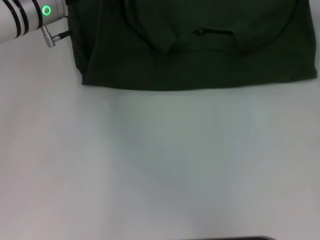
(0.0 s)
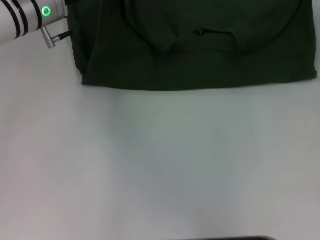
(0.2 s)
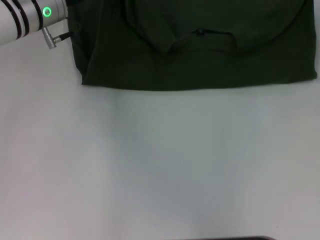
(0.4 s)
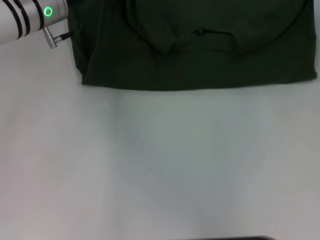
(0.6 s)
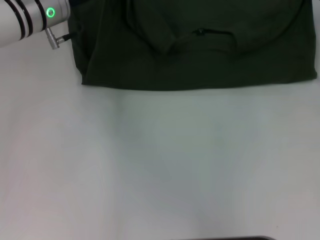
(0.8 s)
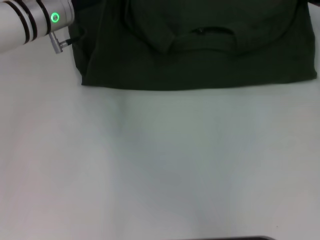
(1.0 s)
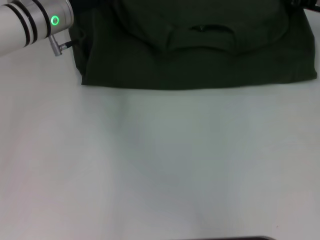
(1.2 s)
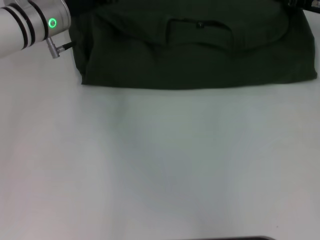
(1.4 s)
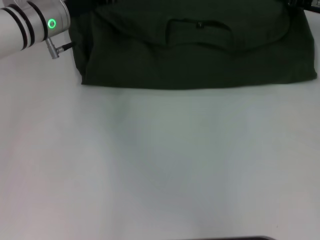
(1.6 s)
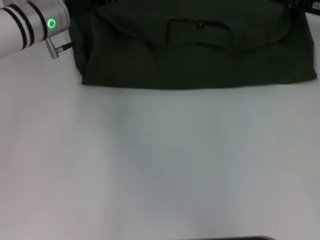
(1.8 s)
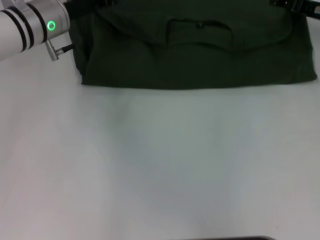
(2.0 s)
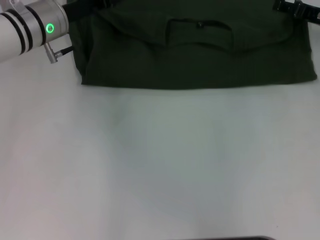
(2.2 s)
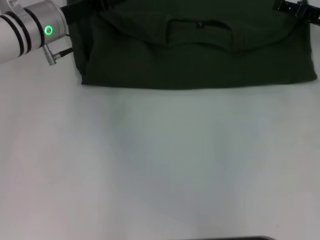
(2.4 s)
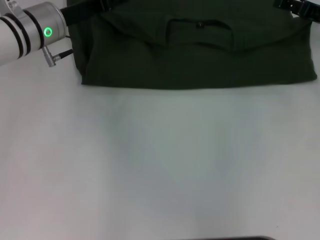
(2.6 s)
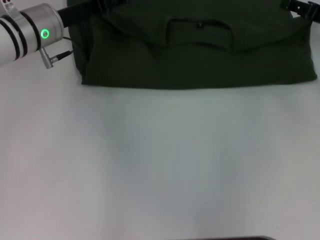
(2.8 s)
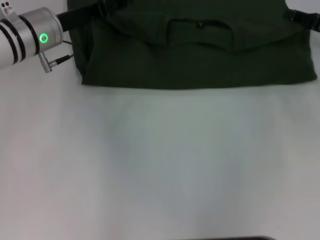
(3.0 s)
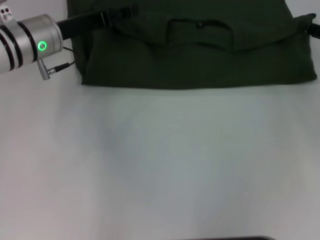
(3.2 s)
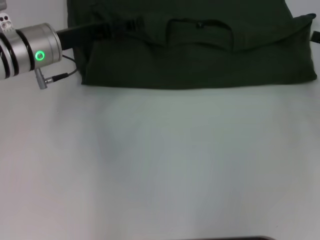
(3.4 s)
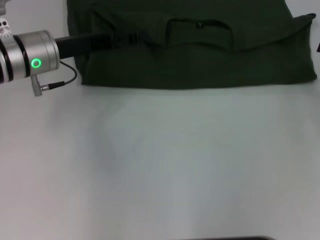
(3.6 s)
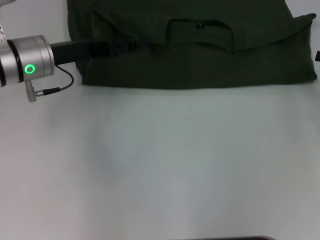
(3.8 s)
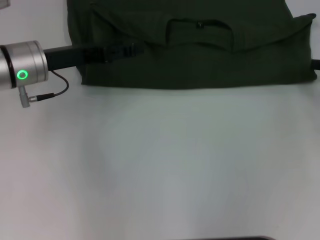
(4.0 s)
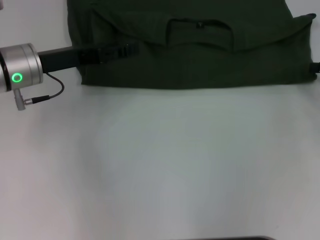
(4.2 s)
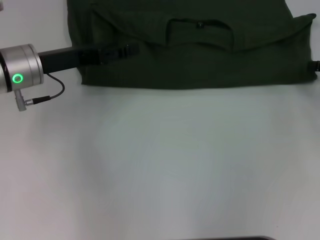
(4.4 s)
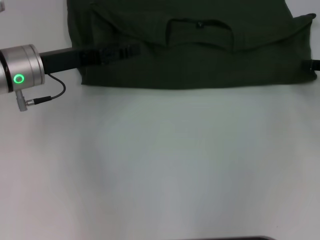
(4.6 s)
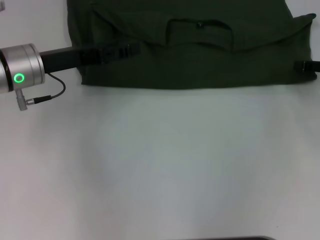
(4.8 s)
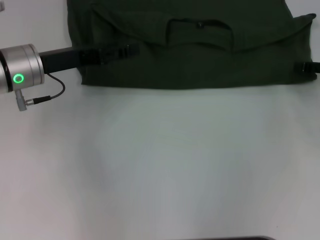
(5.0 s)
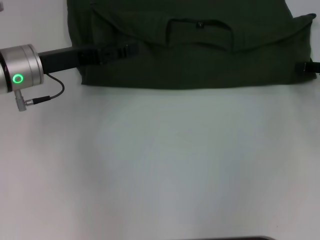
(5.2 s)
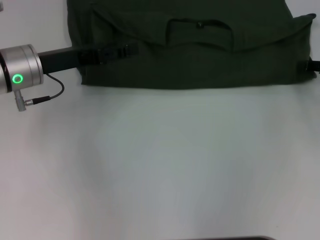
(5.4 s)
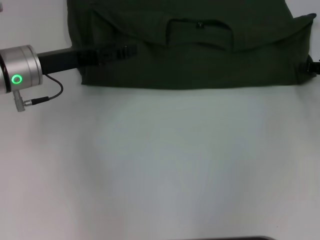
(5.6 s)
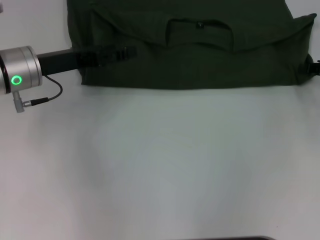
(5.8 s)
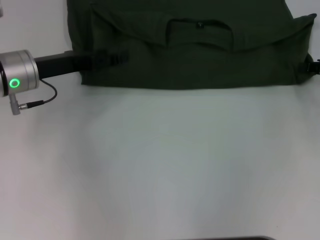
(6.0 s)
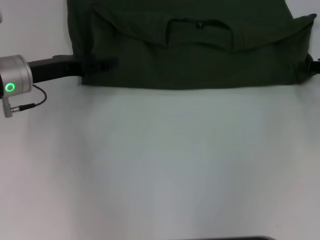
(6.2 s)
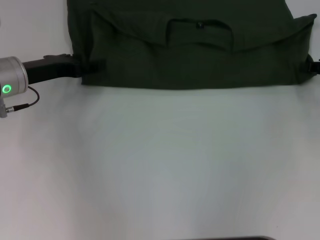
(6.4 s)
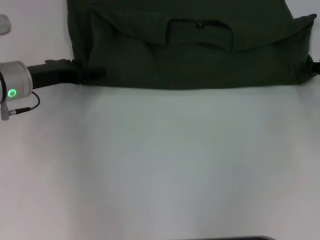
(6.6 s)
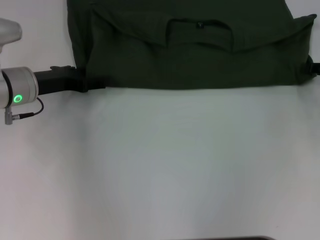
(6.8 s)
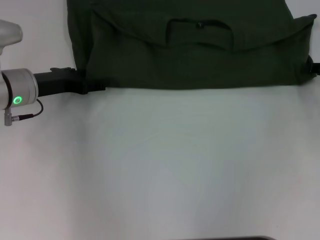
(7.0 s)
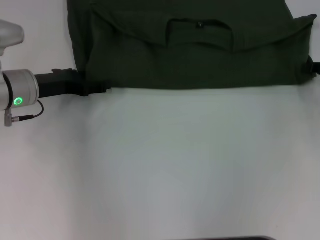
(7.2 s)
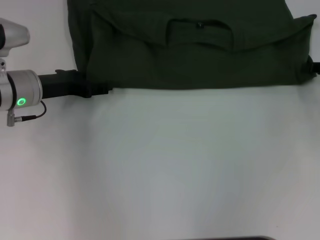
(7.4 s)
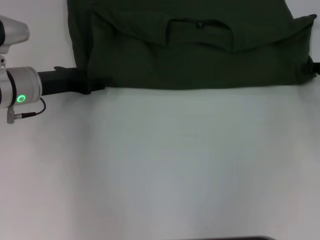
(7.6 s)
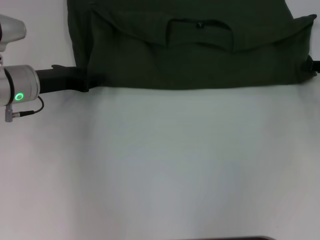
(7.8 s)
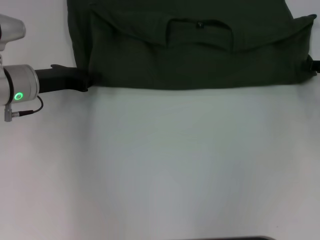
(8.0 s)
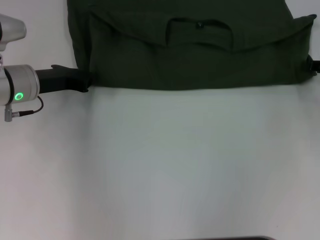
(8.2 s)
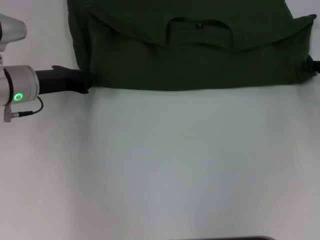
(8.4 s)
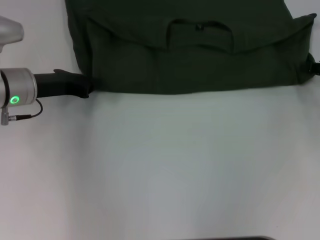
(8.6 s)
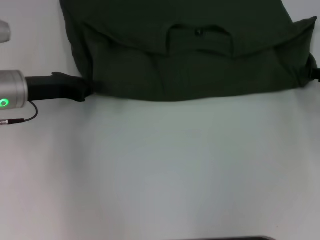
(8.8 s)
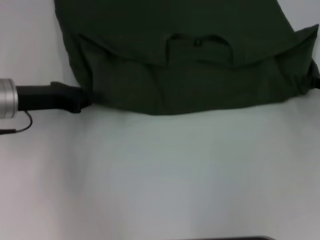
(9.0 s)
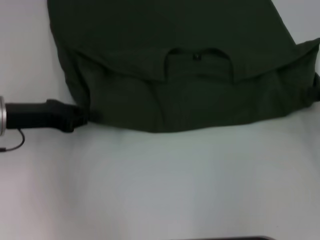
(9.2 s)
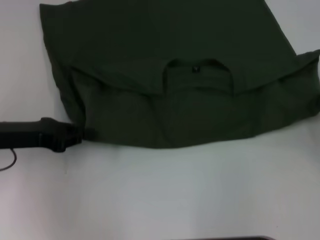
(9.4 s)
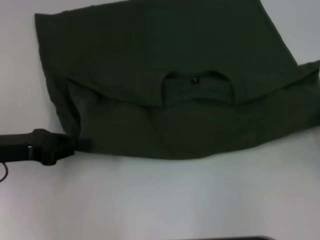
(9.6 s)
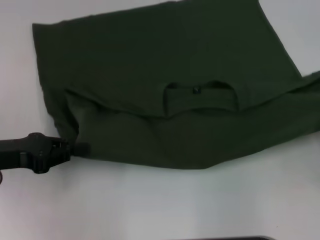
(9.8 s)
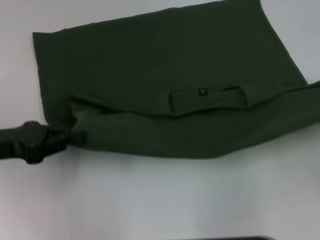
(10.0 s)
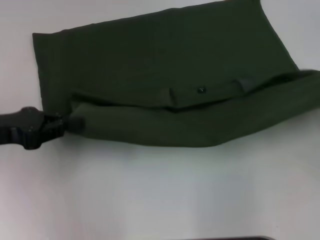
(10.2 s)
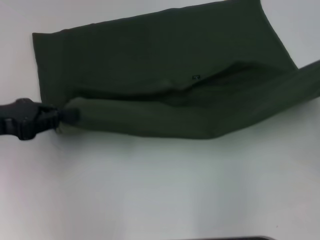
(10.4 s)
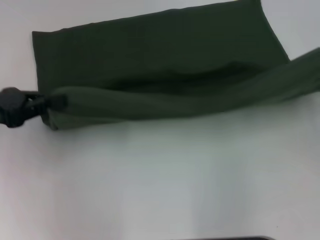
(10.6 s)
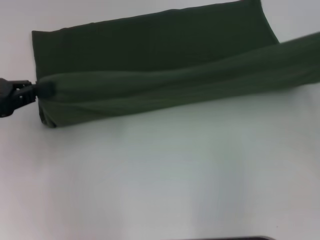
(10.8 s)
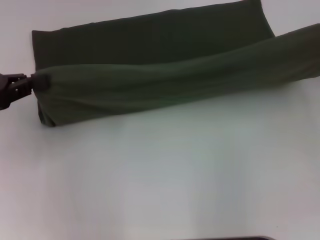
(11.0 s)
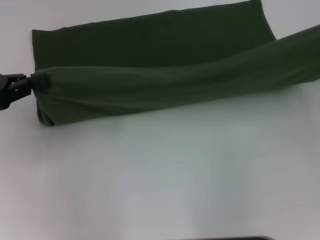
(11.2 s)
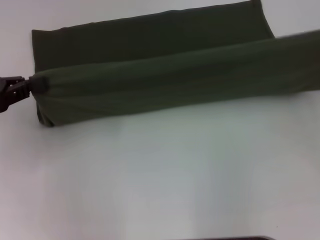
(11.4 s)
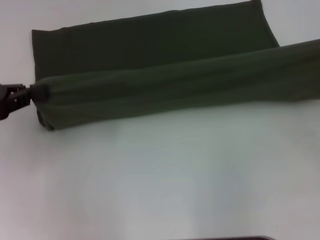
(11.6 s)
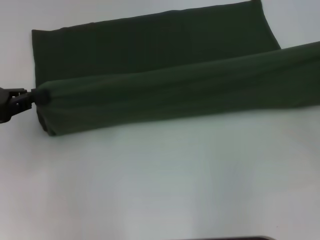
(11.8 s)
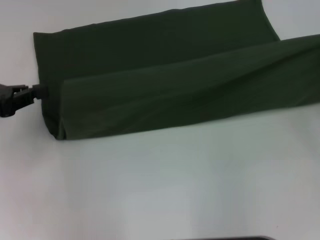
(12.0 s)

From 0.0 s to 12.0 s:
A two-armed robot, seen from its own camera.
Step, from 0.0 s to 3.4 s: Fold the clothes with your left hand.
Step, from 0.0 s to 3.4 s: Fold the clothes with your right hand.
Step, from 3.6 s to 9.6 s: Pull the clothes with your left hand.
Step, from 3.6 s to 9.6 s: Pull the clothes with your right hand.
From 0.0 s to 1.6 s: The left gripper opens. Meanwhile the right gripper opens.
From 1.6 s to 3.0 s: The right gripper goes some 5 cm backward.
From 3.0 s to 4.4 s: The right gripper changes place by some 5 cm. Meanwhile the left gripper travels backward by some 5 cm.
From 7.6 s to 9.0 s: The left gripper closes its fingers.
From 9.0 s to 10.4 s: The left gripper moves backward and to the left, some 10 cm; the right gripper moves backward, some 5 cm.
From 10.4 s to 12.0 s: The grippers move only a little.

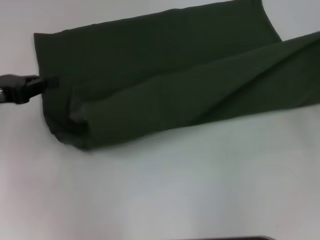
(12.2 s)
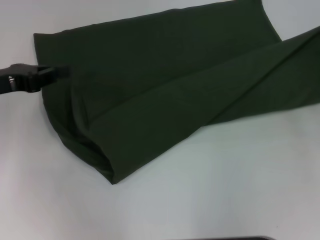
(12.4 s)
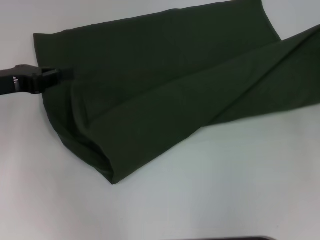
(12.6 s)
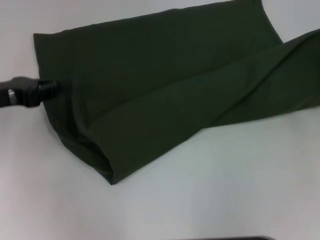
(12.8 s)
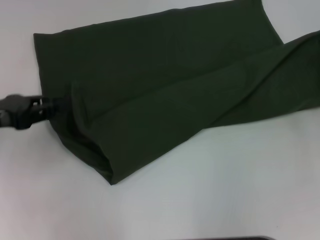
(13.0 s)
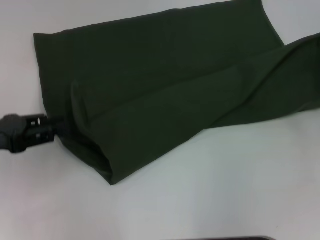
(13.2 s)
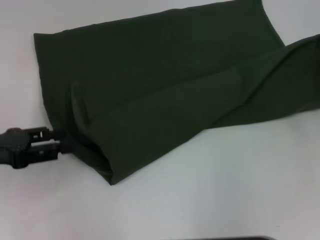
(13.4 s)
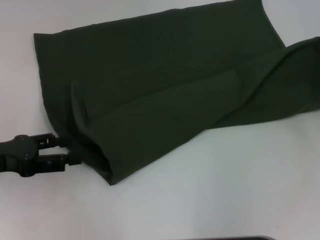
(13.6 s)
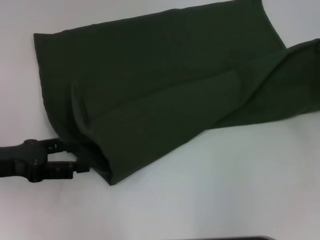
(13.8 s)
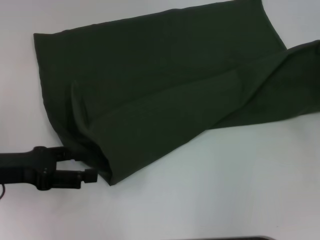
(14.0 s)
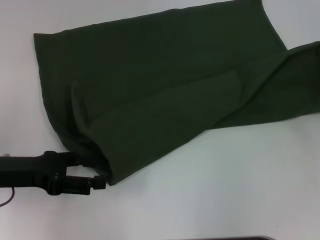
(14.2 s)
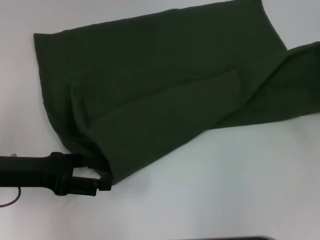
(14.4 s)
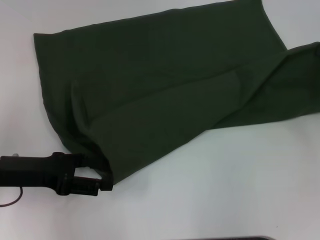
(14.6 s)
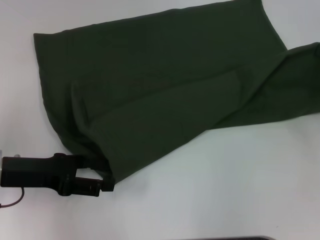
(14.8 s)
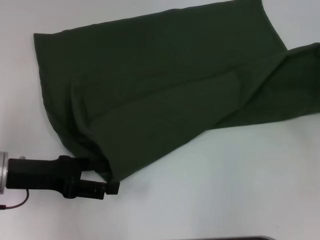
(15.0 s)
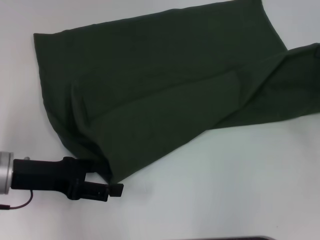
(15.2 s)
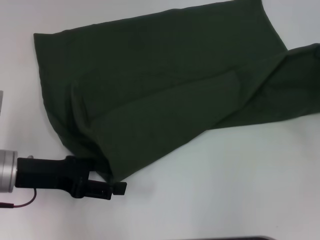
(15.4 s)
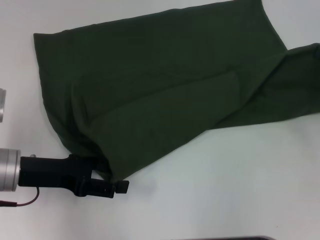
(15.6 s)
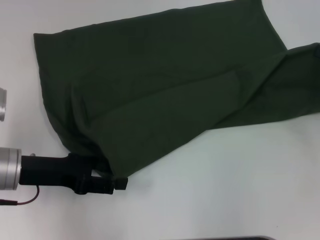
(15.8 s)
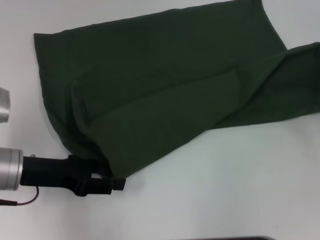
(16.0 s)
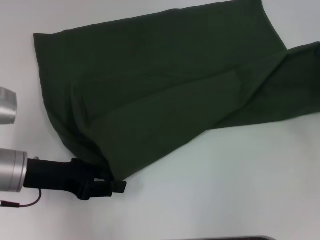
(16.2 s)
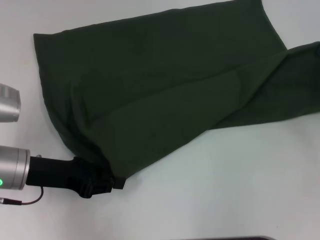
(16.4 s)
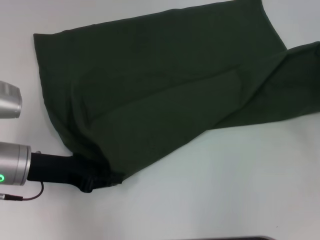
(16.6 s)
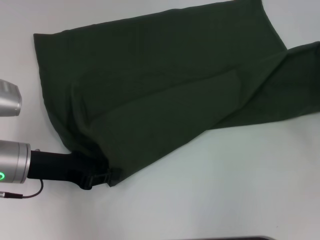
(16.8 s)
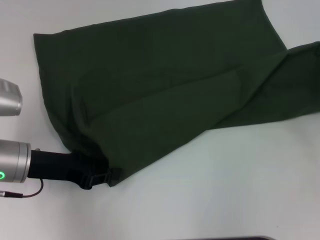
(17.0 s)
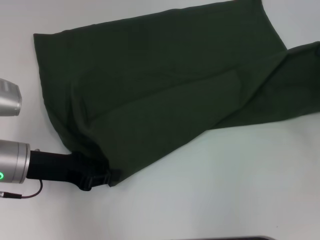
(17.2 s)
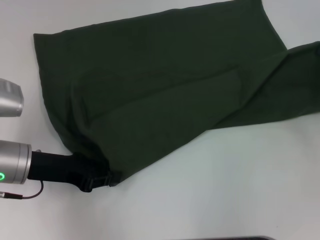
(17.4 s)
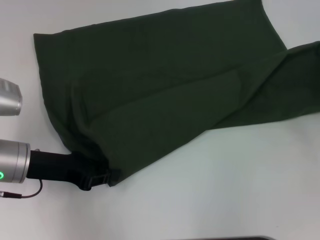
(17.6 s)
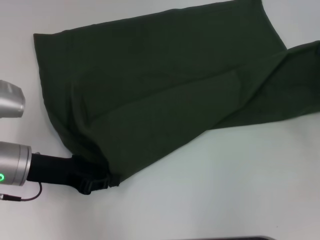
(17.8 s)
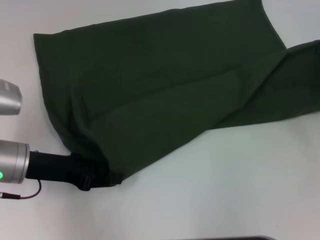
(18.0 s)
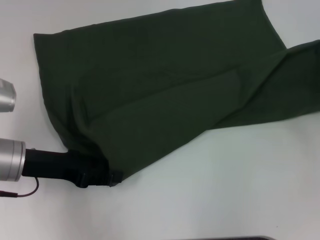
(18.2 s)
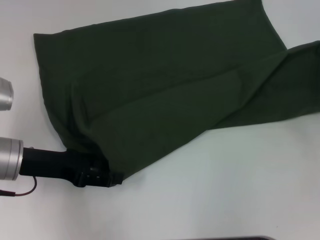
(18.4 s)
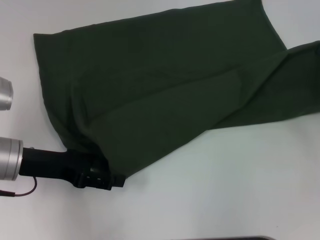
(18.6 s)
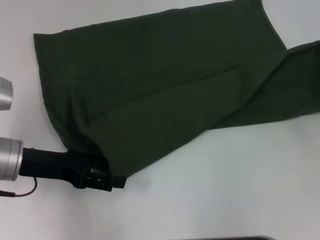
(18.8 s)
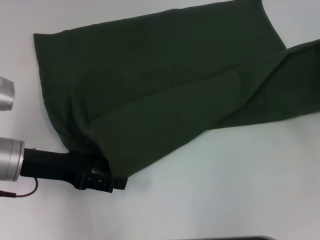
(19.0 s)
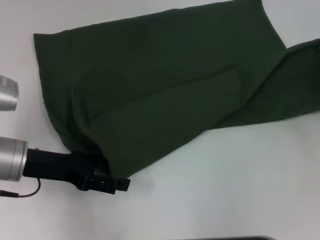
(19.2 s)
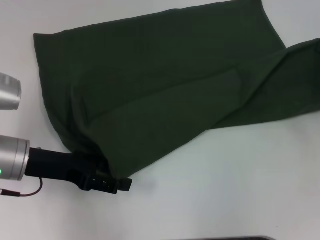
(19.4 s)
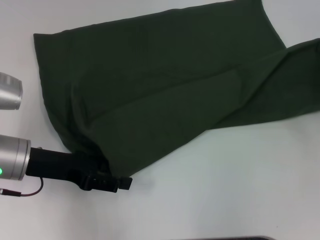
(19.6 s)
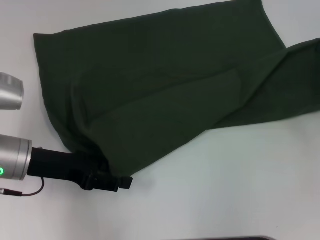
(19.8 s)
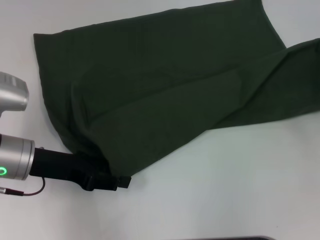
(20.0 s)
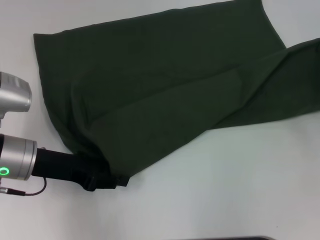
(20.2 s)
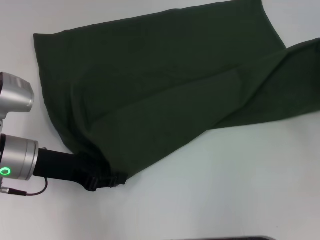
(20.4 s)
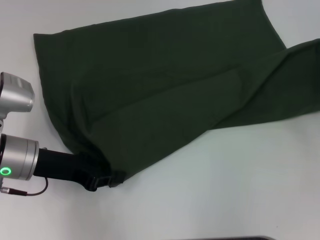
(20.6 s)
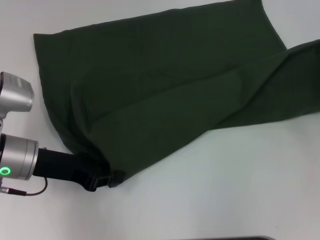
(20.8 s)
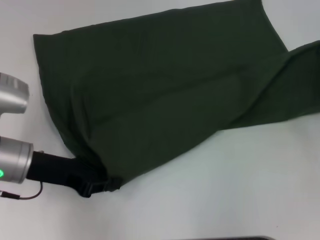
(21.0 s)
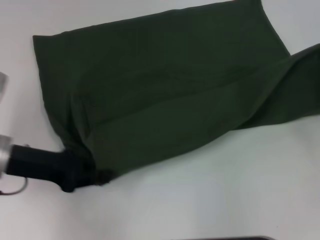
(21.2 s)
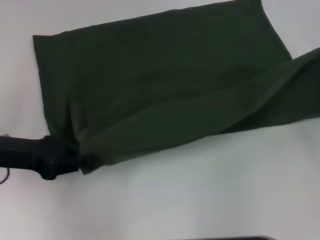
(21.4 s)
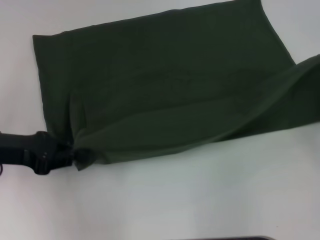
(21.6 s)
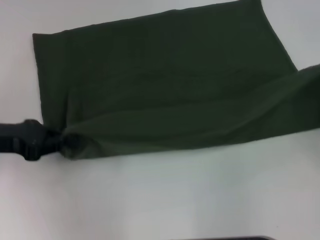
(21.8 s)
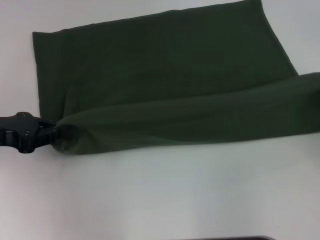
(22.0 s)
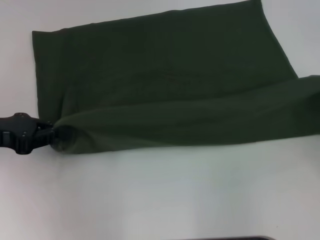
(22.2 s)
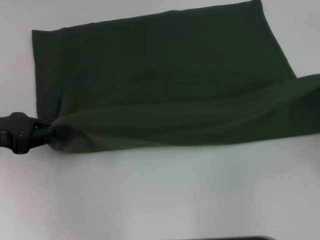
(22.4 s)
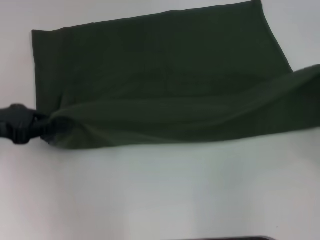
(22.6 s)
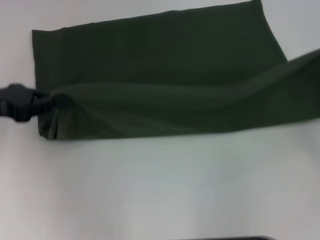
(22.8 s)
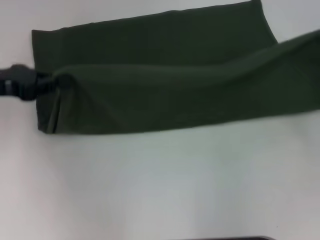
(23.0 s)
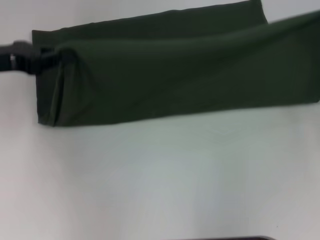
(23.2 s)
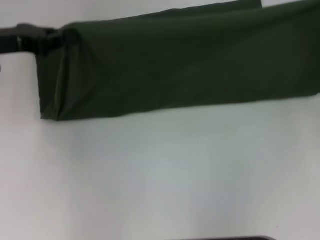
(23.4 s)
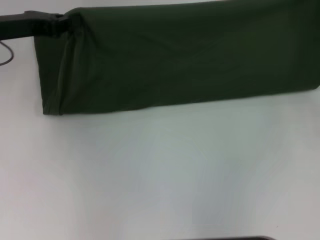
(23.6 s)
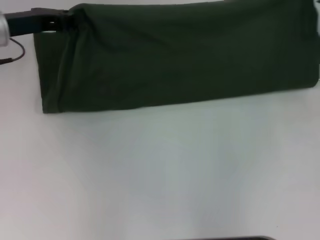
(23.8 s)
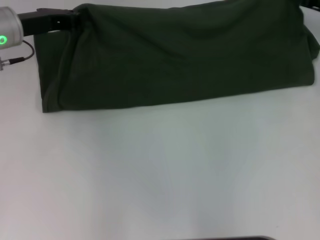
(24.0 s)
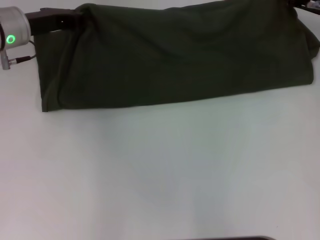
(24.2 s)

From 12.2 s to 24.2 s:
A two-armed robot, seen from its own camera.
From 12.2 s to 13.8 s: The left gripper is displaced backward by roughly 5 cm, and opens its fingers.
From 13.8 s to 15.2 s: The left gripper ends up about 5 cm from where it was.
From 15.2 s to 16.6 s: The left gripper closes.
From 16.6 s to 18.2 s: Both grippers stay put.
From 18.2 s to 19.8 s: The left gripper opens its fingers.
From 19.8 s to 21.2 s: The left gripper closes its fingers.
From 21.2 s to 22.6 s: The left gripper moves to the left, about 5 cm.
From 22.6 s to 24.2 s: The right gripper shifts some 20 cm forward and to the left. The left gripper moves forward and to the right, about 15 cm.
